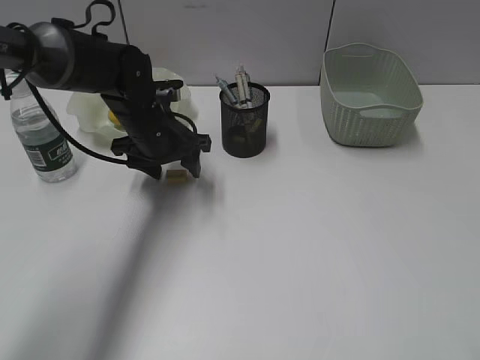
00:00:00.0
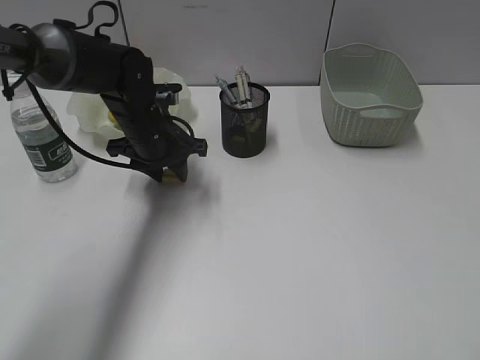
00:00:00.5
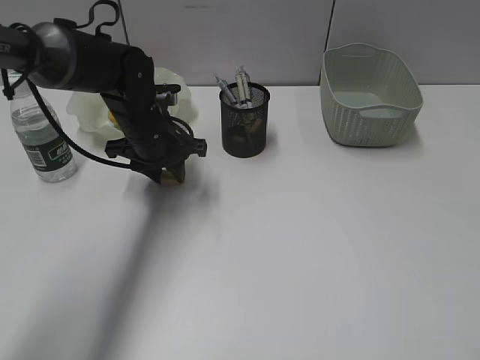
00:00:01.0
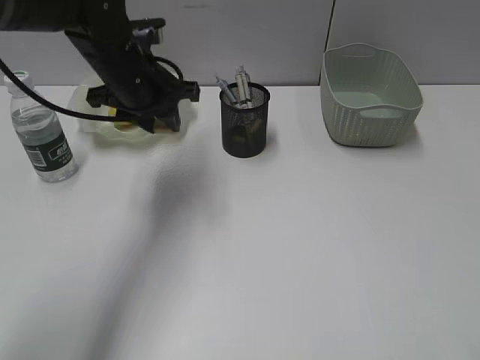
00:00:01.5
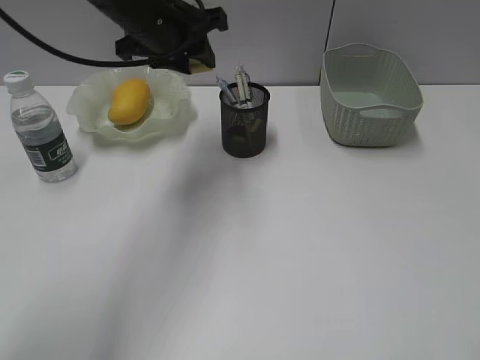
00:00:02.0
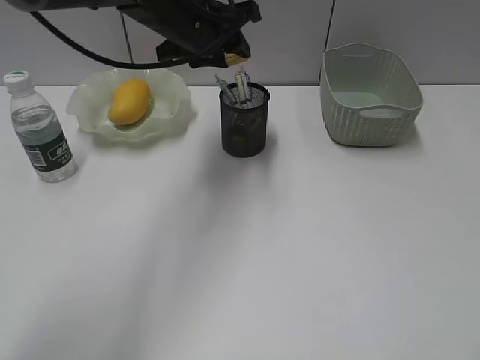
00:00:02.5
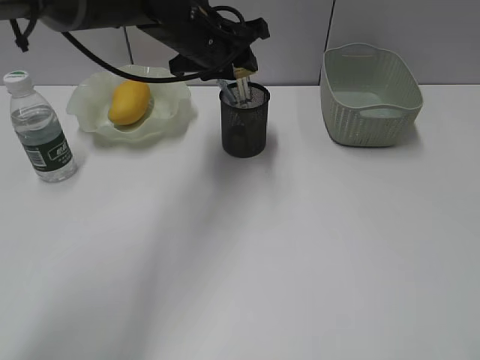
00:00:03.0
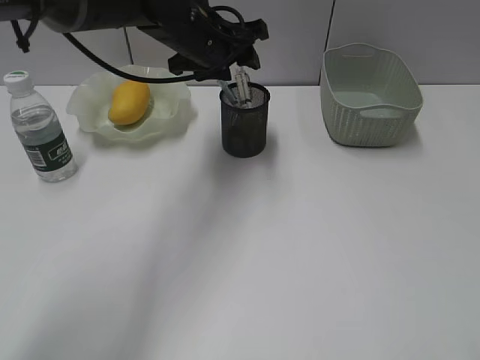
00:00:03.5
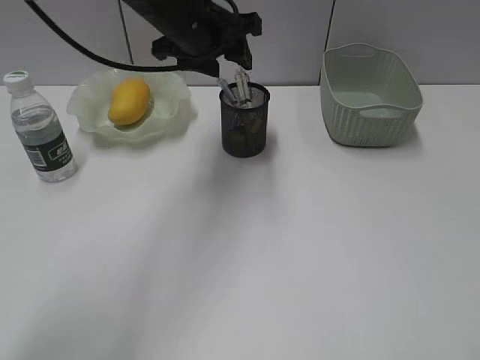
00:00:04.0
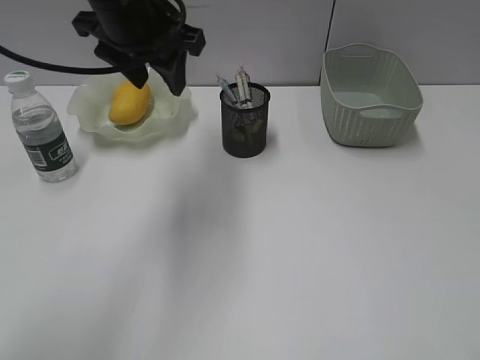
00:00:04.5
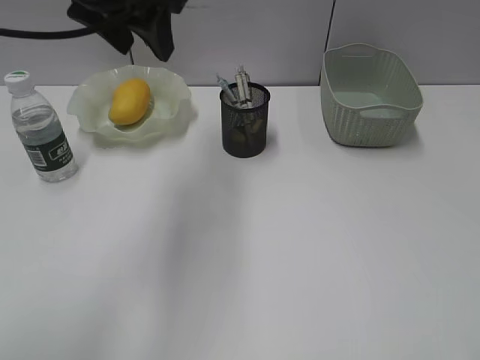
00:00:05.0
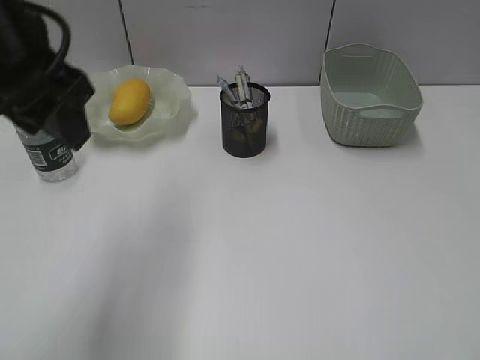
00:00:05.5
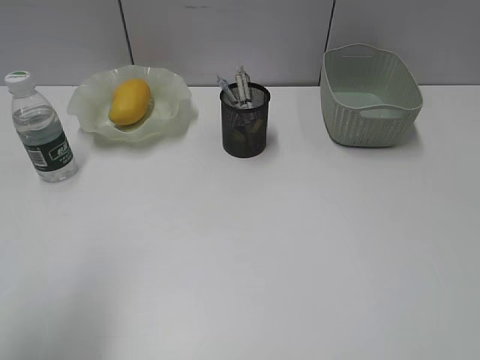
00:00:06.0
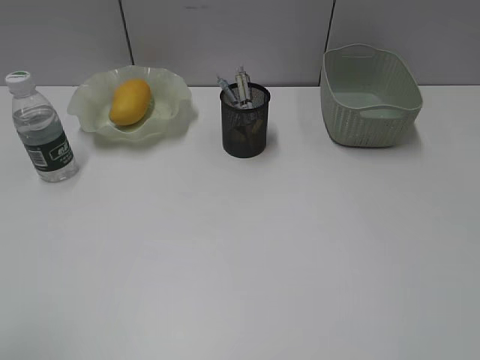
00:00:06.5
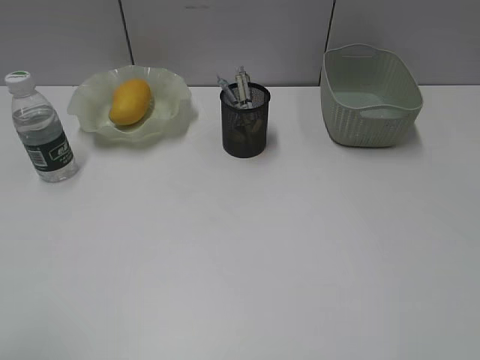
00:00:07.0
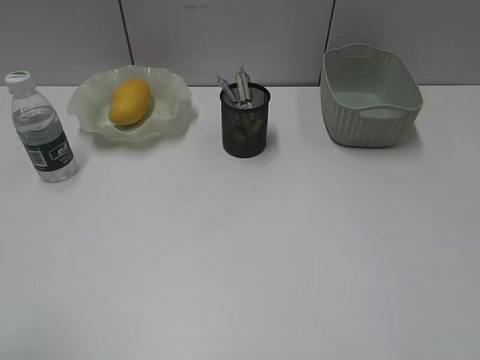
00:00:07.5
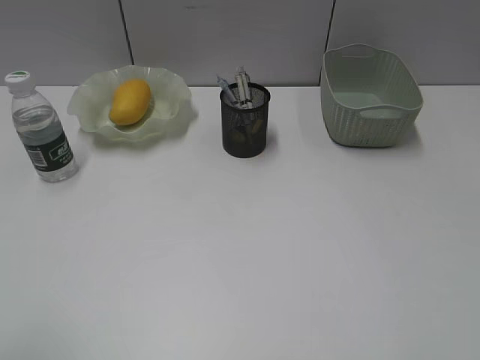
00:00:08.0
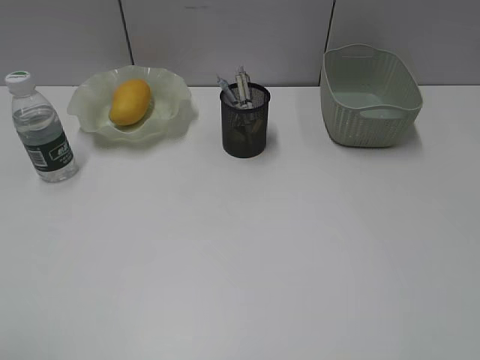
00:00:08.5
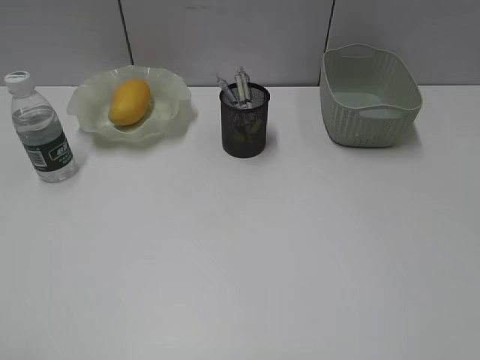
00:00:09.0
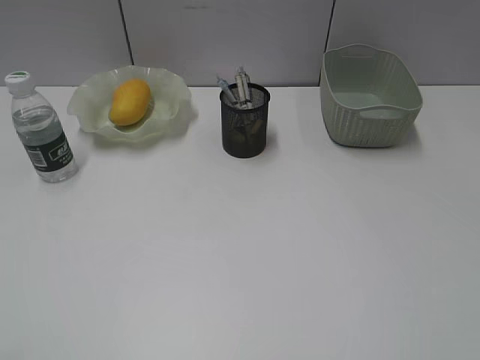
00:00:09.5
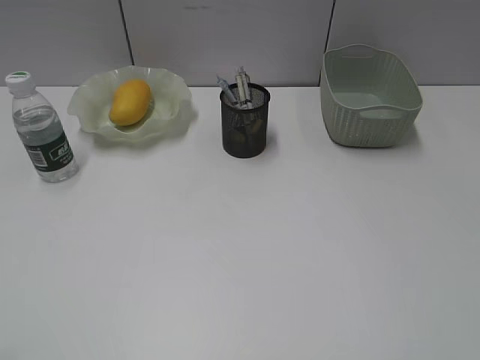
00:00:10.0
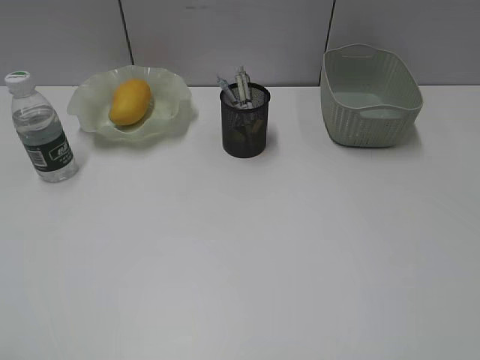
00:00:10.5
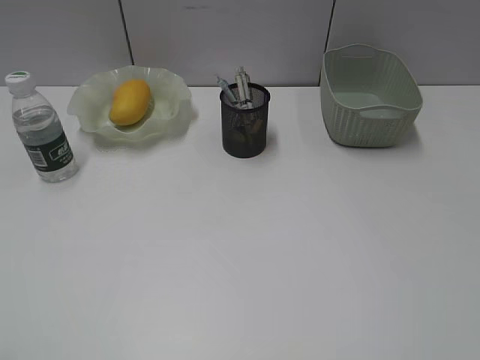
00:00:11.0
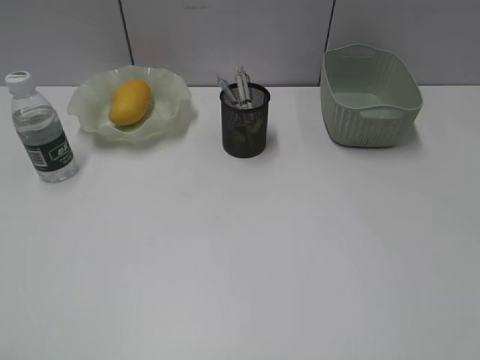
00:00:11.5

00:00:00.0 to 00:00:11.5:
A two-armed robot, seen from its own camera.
Step, 00:00:01.5 to 00:00:03.0: Place the eraser in pen holder with left gripper.
00:00:00.0 to 00:00:02.0: The left gripper is displaced upward by roughly 15 cm, and closes its fingers.
00:00:04.0 to 00:00:06.0: The left gripper is displaced backward and to the left by some 35 cm.
00:00:09.5 to 00:00:11.5: The two grippers keep their place.

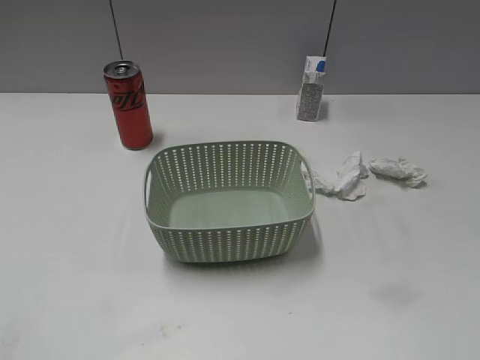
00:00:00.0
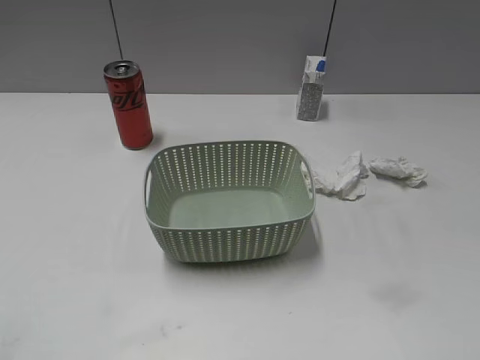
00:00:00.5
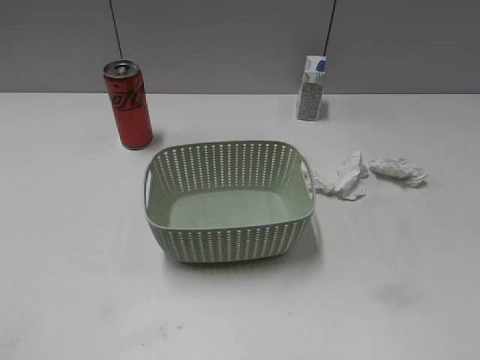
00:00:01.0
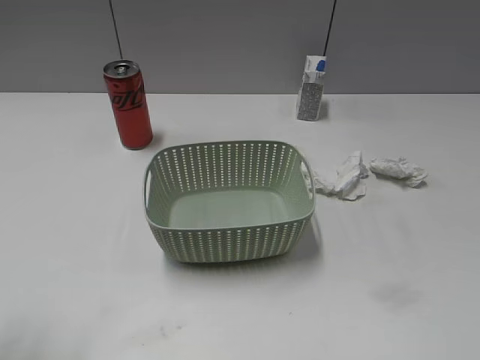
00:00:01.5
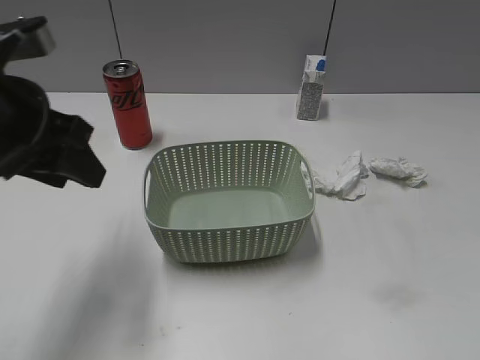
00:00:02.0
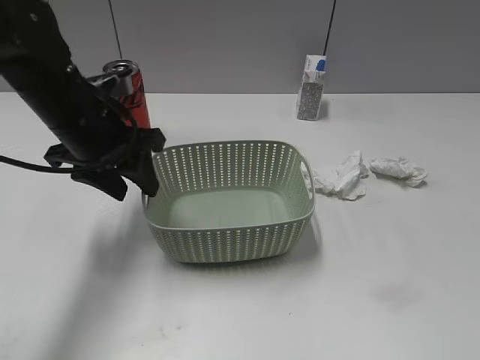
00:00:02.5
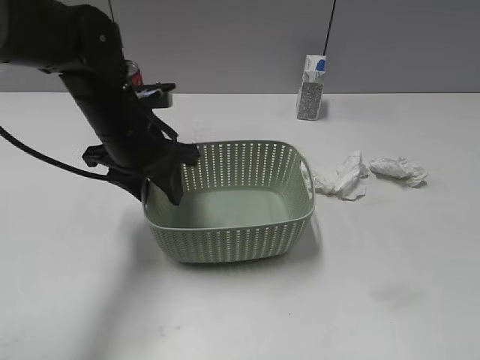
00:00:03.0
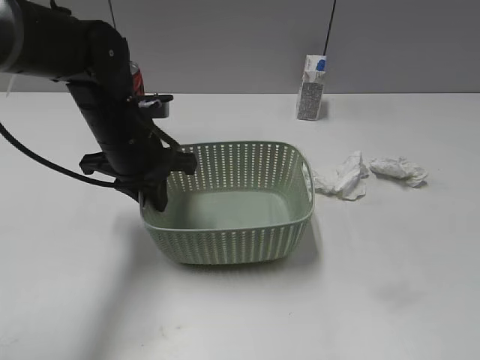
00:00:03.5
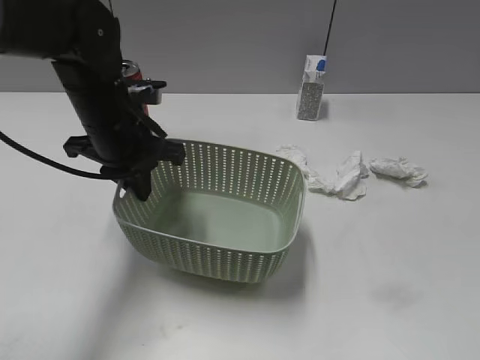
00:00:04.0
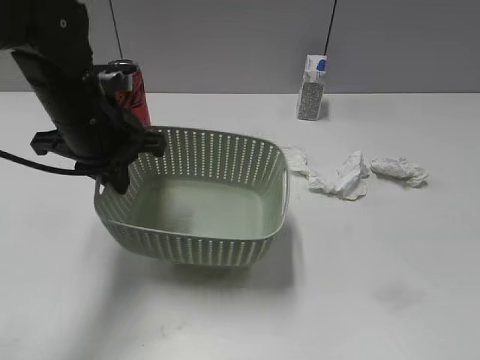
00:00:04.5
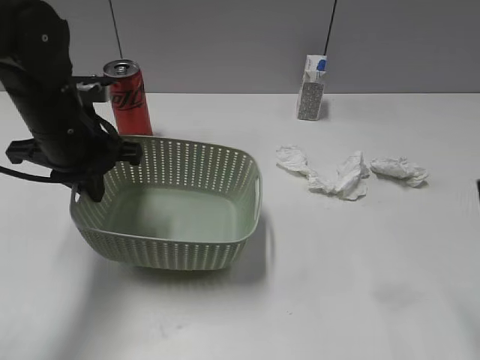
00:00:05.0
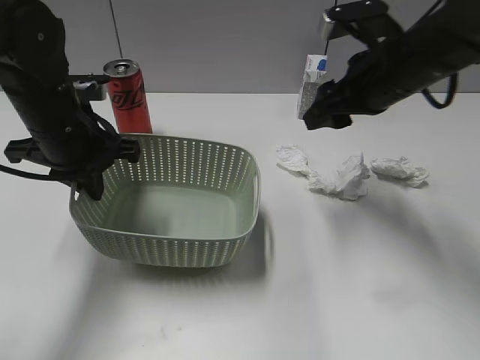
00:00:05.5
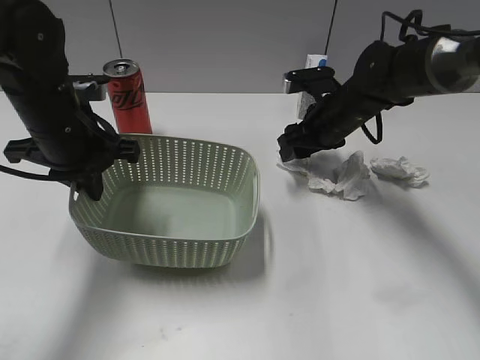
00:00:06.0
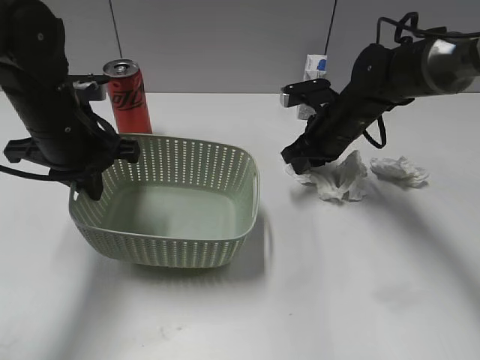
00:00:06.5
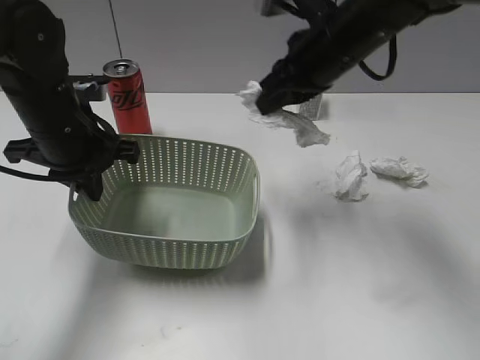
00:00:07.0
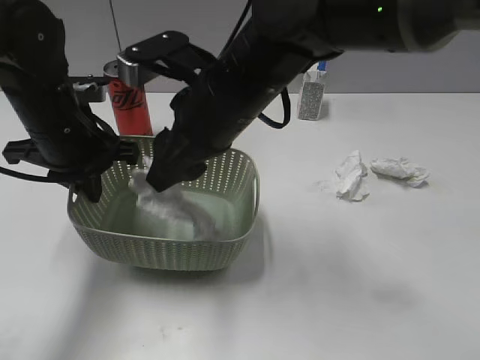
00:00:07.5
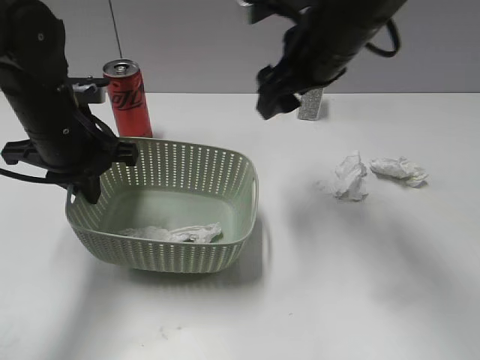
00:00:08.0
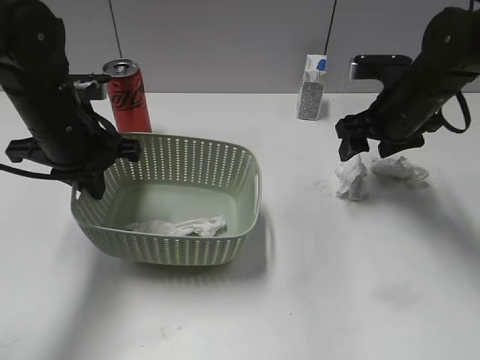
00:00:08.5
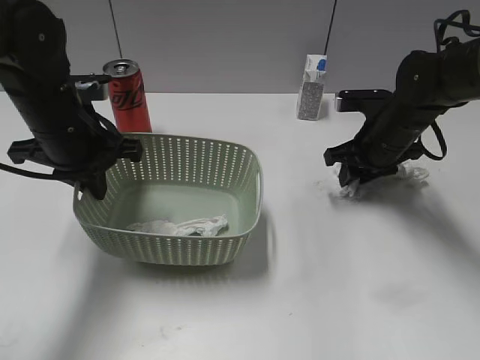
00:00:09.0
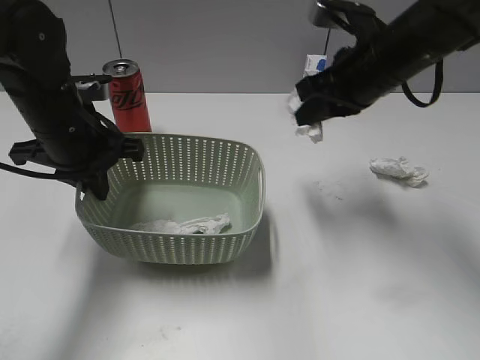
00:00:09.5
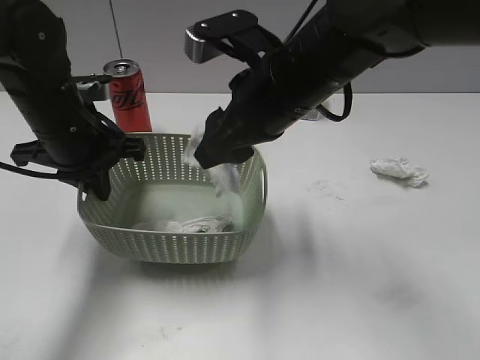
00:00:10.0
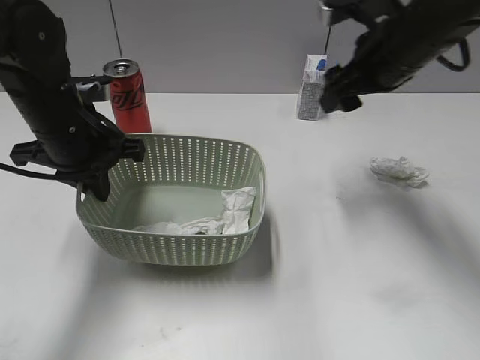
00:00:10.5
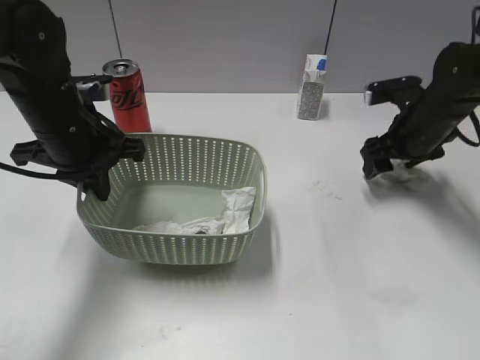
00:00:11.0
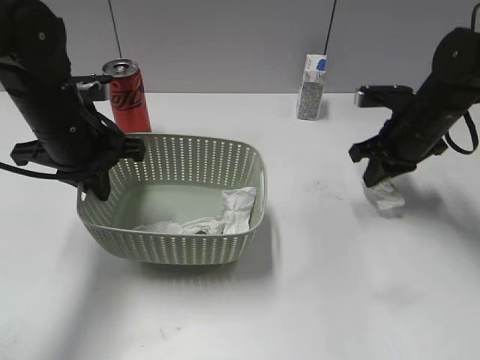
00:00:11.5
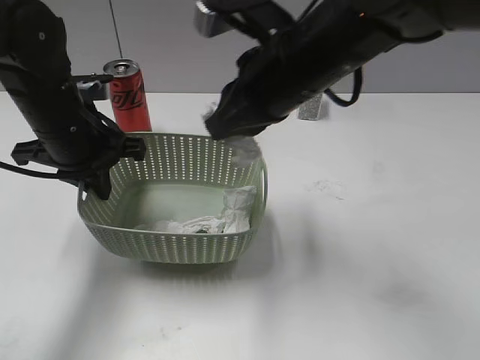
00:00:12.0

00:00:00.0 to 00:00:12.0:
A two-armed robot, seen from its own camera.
Step, 00:00:02.0 to 00:00:03.5: Grasp the basket with left gripper.
Step, 00:00:04.0 to 00:00:04.5: Lift the basket with left gripper.
Step, 00:00:05.0 to 00:00:06.5: Grasp the waste paper with right gripper.
Step, 00:00:07.0 to 00:00:07.5: Place the waste paper in the basket with right gripper.
Step, 00:00:08.0 to 00:00:09.0: Grasp the waste paper with right gripper.
Step, 00:00:09.5 to 00:00:10.0: Place the waste paper in the basket with right gripper.
Step, 00:00:10.5 to 00:00:11.5: Grasp the waste paper with right gripper.
00:00:02.0 to 00:00:04.0: The left gripper goes roughly 20 cm forward, downward and to the right, and closes up.
00:00:04.0 to 00:00:06.0: The right gripper is displaced forward by roughly 40 cm, while the left gripper travels to the left by approximately 5 cm.
00:00:06.0 to 00:00:08.0: The right gripper moves upward, to the left and backward, about 15 cm, and closes, then opens again.
00:00:08.0 to 00:00:10.0: The right gripper travels to the right and back again, about 15 cm each way, and closes its fingers.
00:00:10.0 to 00:00:12.0: The right gripper travels to the right and back again, roughly 20 cm each way, and opens and closes again.

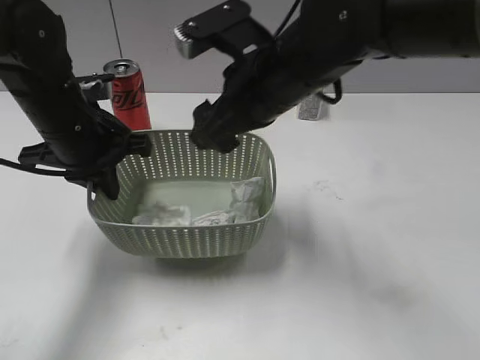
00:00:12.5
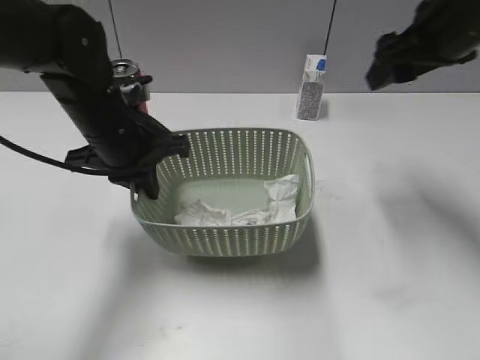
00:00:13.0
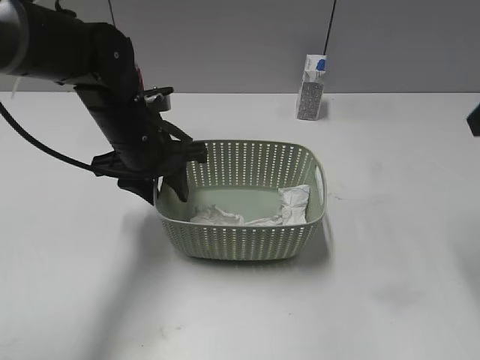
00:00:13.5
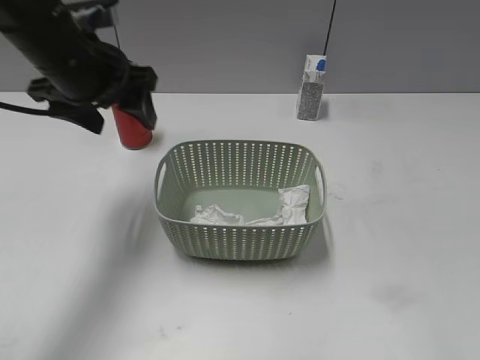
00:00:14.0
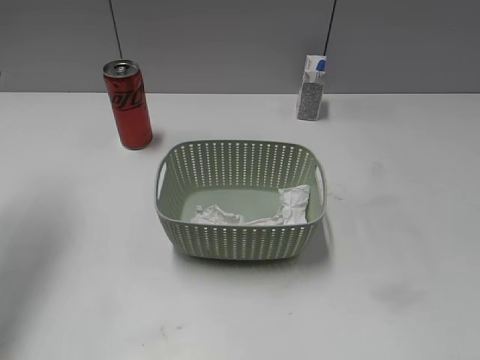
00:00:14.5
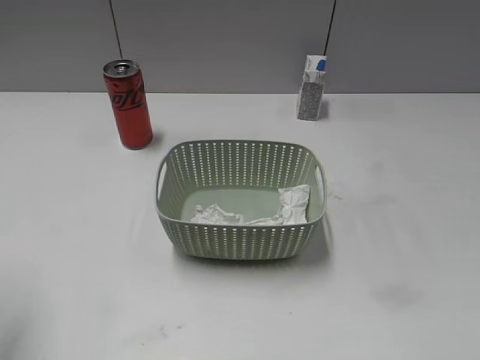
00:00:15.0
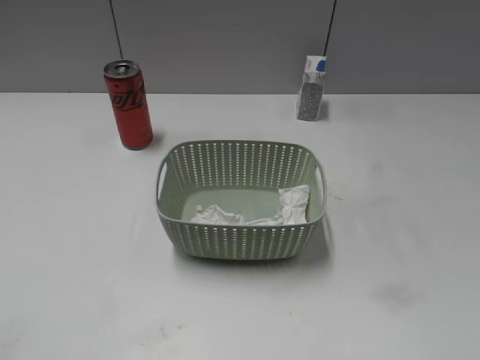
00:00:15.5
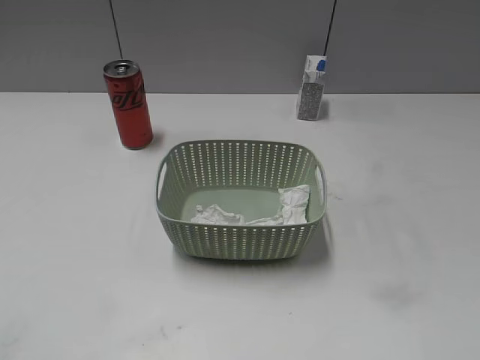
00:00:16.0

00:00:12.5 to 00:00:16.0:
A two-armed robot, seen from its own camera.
Step, 00:00:12.5 to 00:00:13.5: Place the basket on the table with left gripper.
00:00:12.5 to 00:00:14.5: The right gripper shifts approximately 40 cm to the right and backward; the left gripper moves upward and to the left, some 15 cm, and opens.
00:00:14.5 to 00:00:16.0: The left gripper moves backward, roughly 35 cm.
